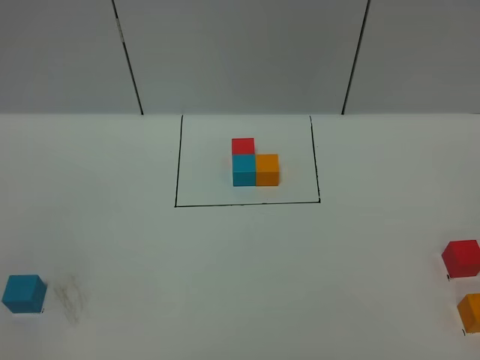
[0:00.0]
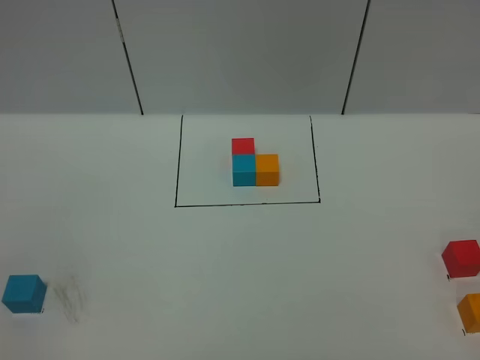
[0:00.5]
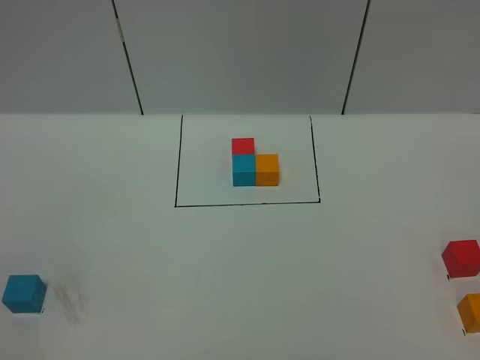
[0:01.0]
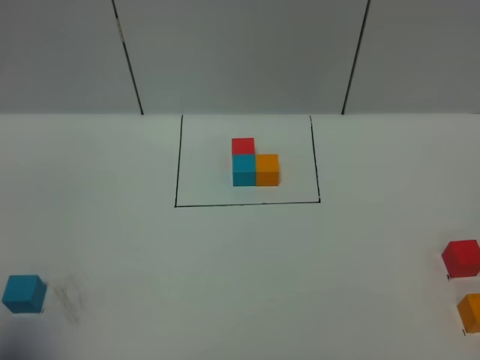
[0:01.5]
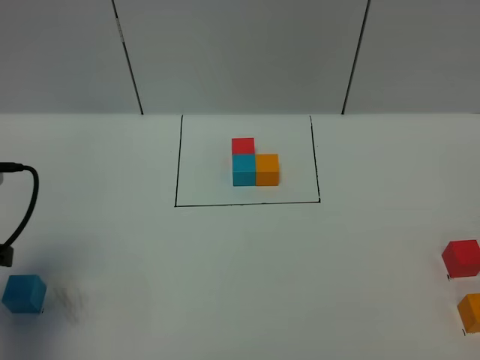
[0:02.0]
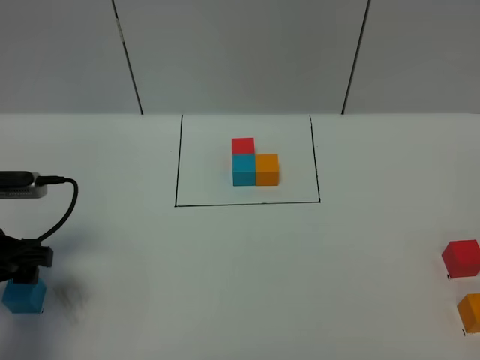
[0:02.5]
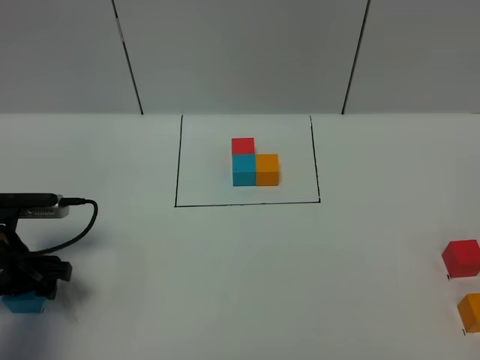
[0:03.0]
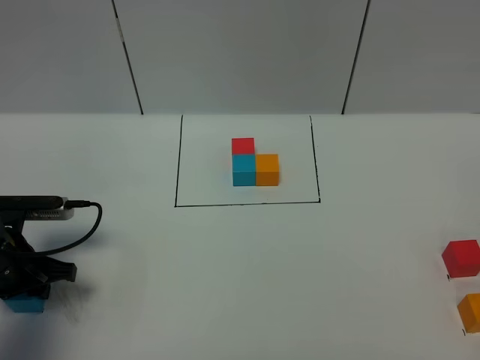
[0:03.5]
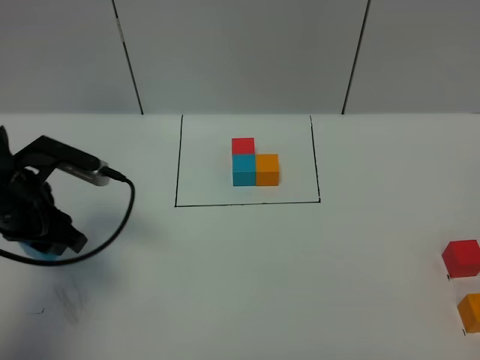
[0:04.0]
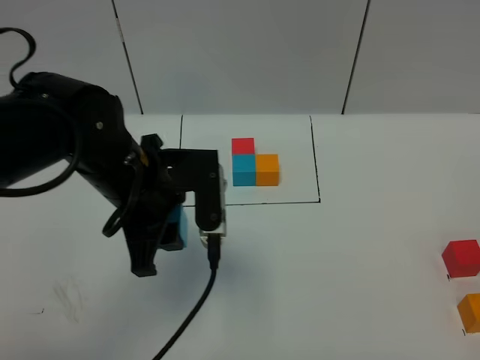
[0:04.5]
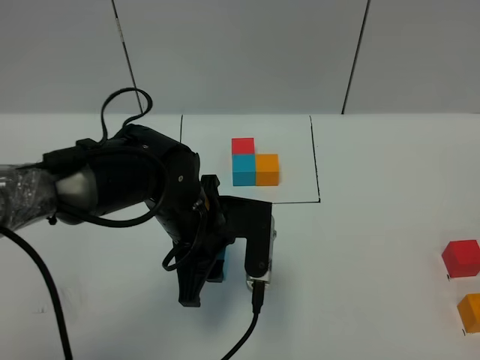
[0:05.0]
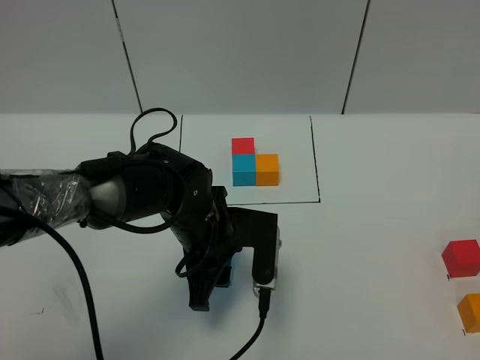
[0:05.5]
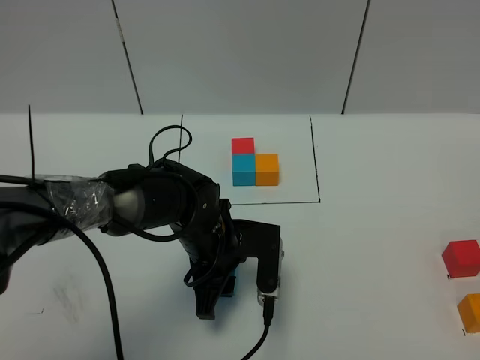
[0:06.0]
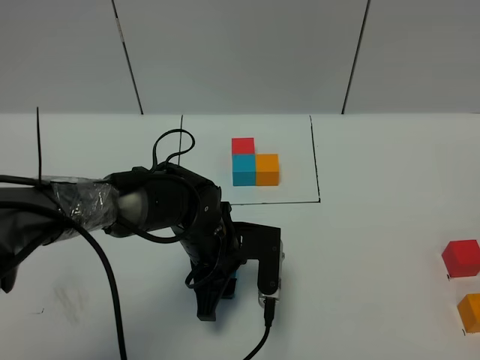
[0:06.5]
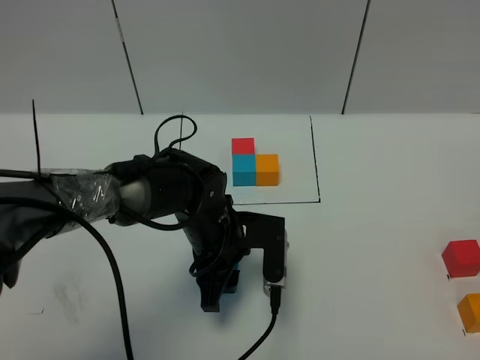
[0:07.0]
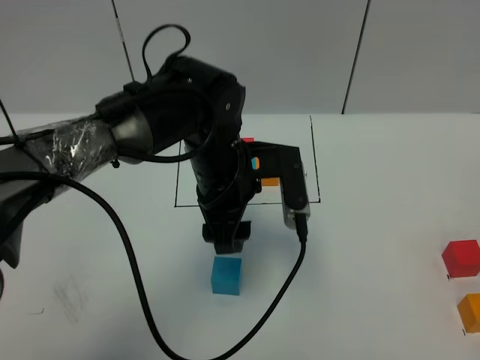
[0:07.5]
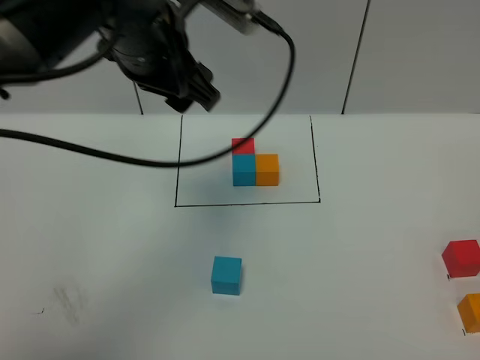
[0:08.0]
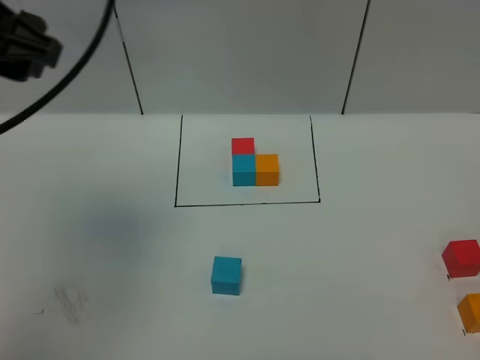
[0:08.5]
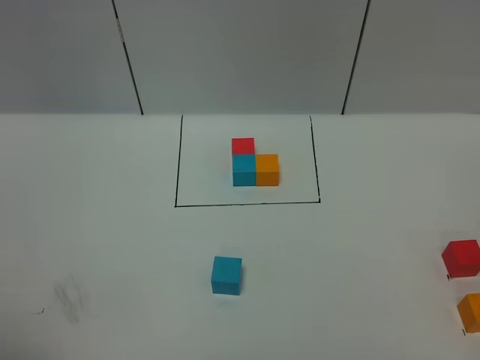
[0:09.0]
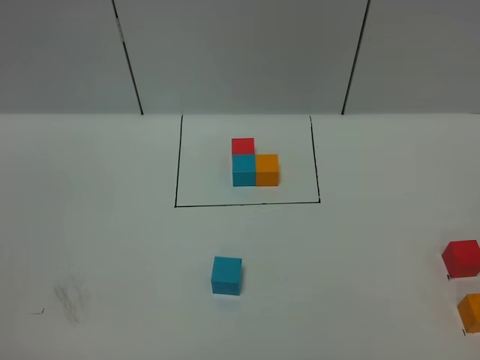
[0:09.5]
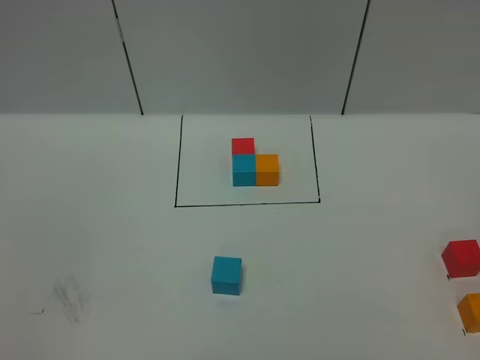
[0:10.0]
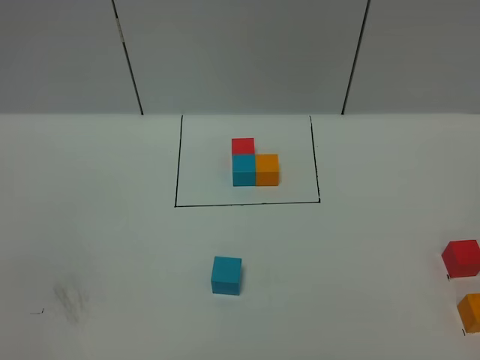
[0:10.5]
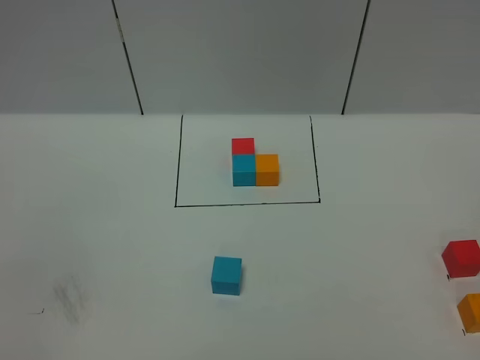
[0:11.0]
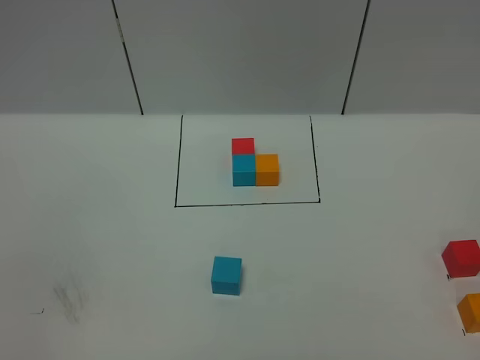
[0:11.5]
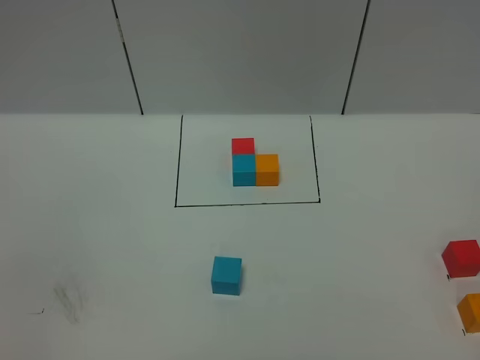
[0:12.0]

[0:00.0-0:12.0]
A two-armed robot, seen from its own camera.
Task of the whole recording: According to the building block template in front, assemble the scattered blocks together.
Step, 0:02.0 to 0:07.0: Put the blue cube in the center of the table.
0:00.0 to 0:02.0: The left gripper goes approximately 25 cm forward.
0:02.0 to 0:04.0: The left gripper goes some 10 cm forward and to the right, and closes.
0:04.0 to 0:06.0: The left gripper heads to the right, covering roughly 20 cm.
0:06.0 to 0:08.0: The left gripper is displaced upward by some 25 cm, and opens its fingers.
0:08.0 to 0:10.0: The left gripper travels backward and to the left by about 50 cm.

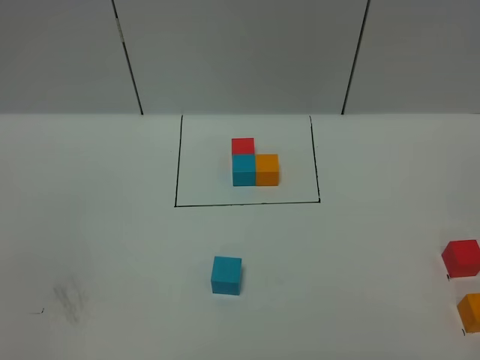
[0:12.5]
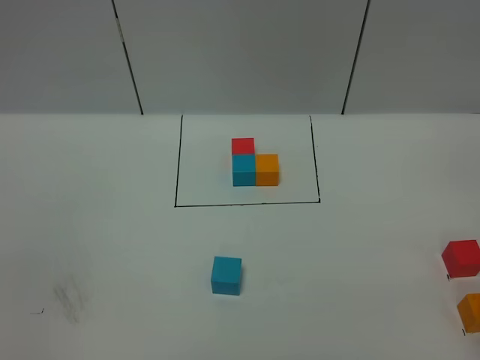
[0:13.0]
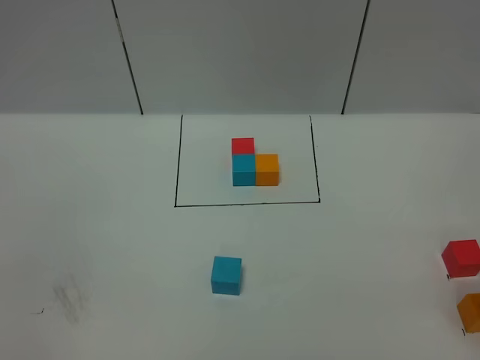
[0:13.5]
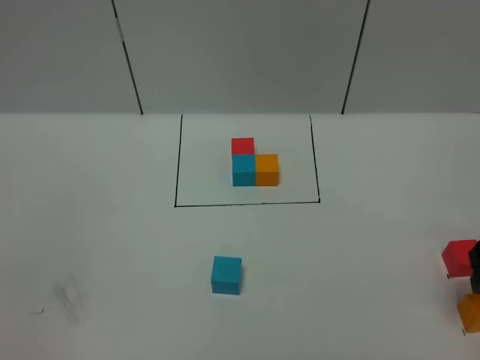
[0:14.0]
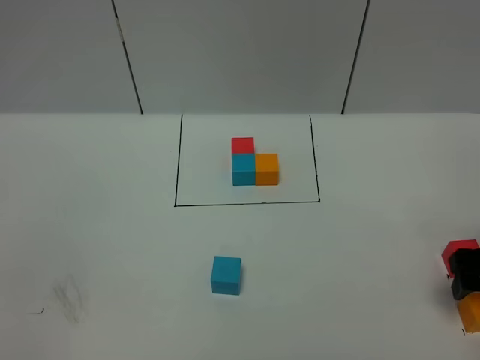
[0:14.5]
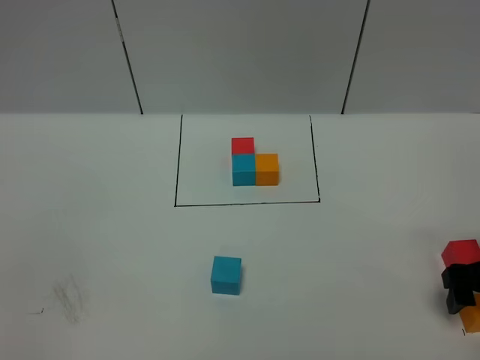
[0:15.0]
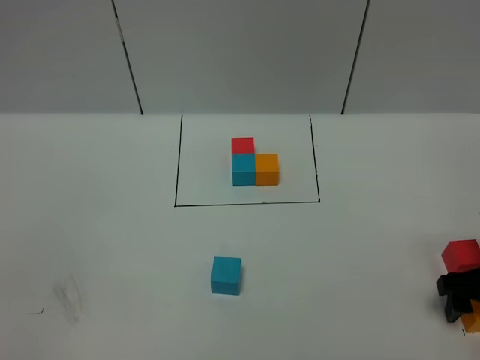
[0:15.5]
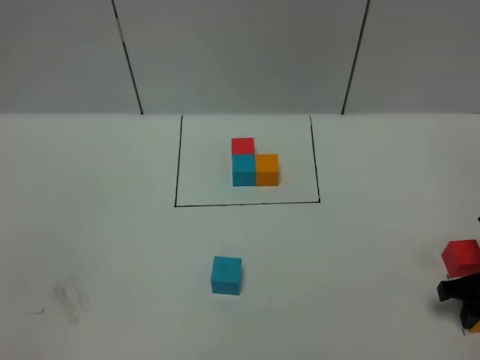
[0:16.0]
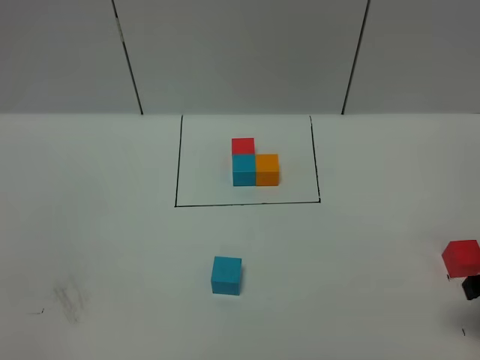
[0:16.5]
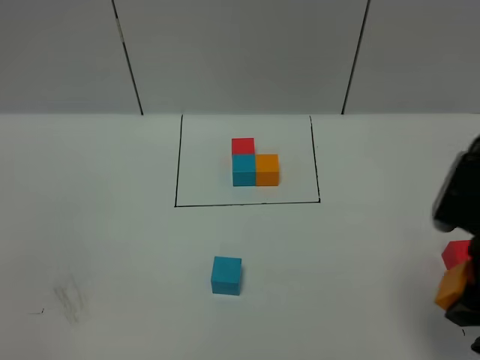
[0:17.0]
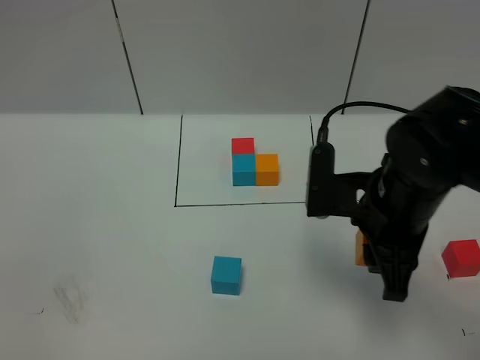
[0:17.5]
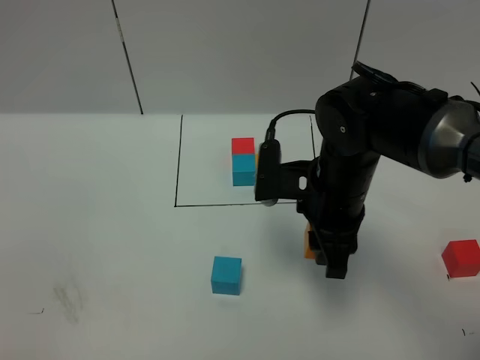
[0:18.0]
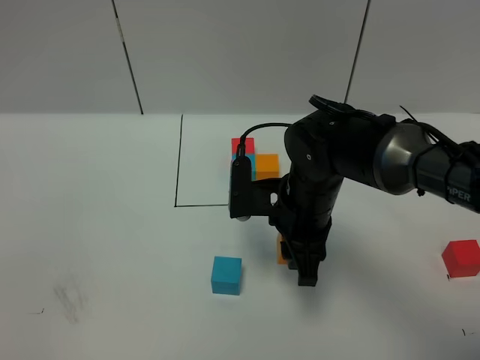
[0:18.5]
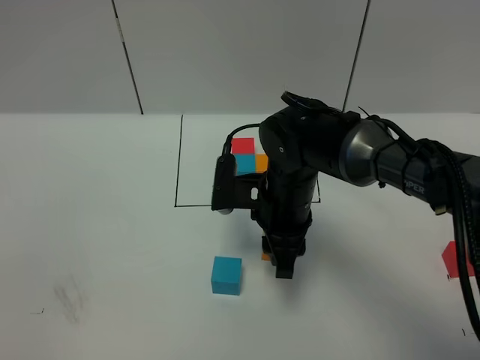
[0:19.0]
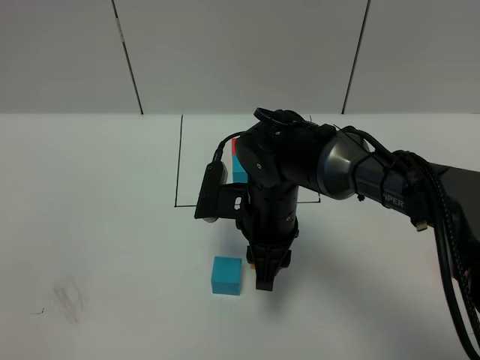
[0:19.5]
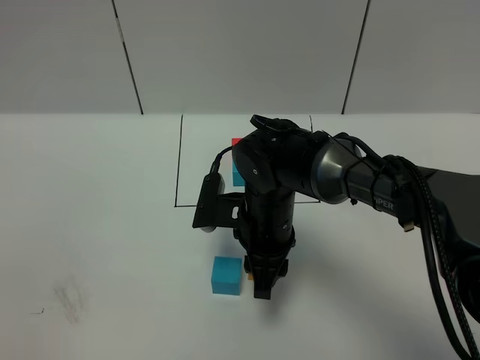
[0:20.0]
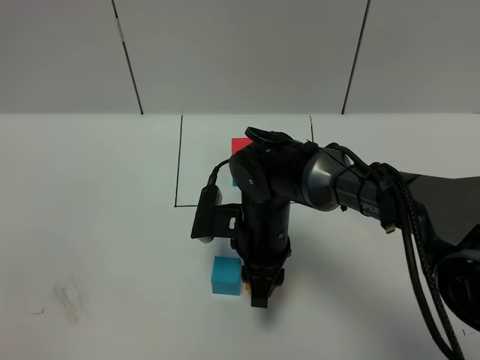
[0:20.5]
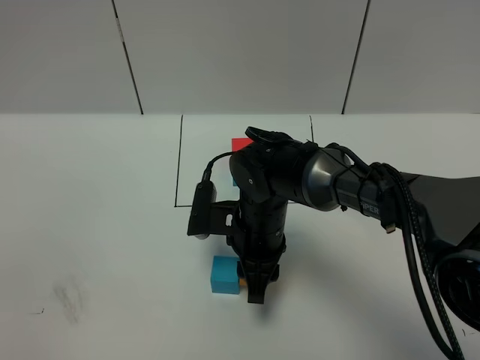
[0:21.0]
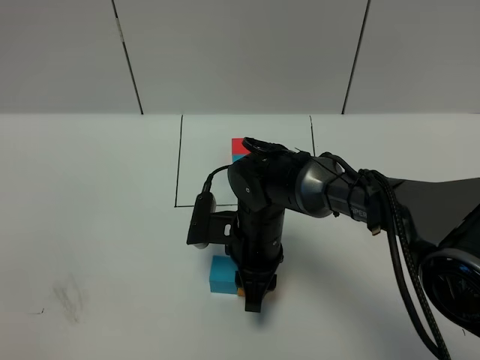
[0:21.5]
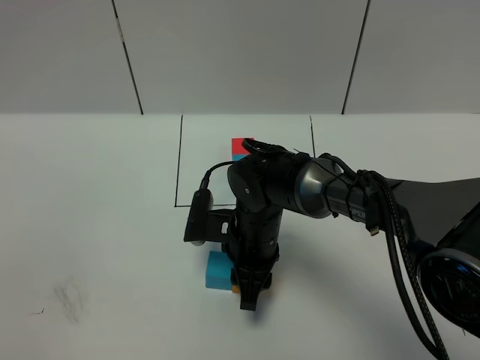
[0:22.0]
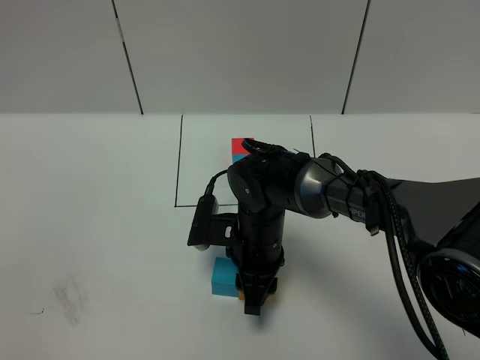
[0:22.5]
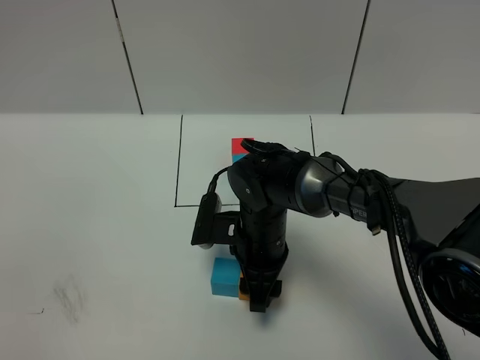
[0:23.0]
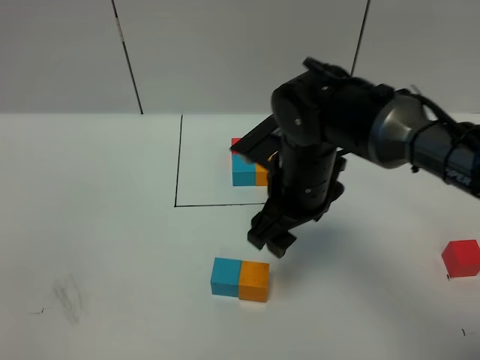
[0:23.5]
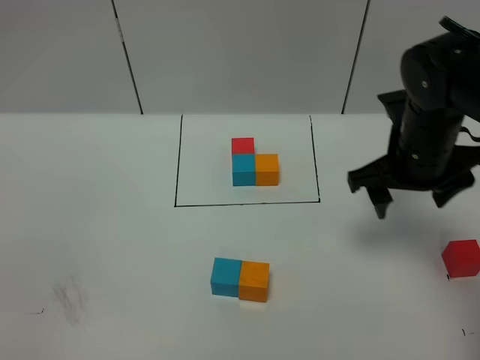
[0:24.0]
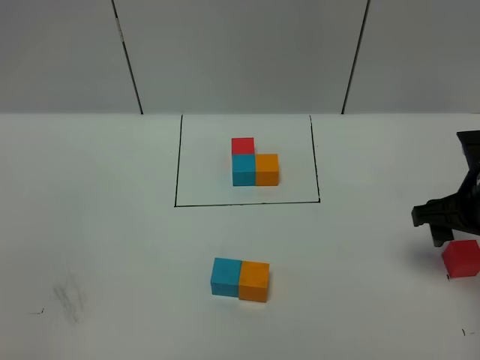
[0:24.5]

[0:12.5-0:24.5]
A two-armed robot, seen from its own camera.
Task of the whole recording: According to the building block template in front, assemble the scattered blocks together.
Step, 0:12.5 to 0:23.5: Put the orange cube on the right of the blue cube.
0:12.5 to 0:14.5: The right gripper travels forward and downward by approximately 25 cm, and opens.
0:14.5 to 0:16.5: The right gripper goes downward and returns, roughly 5 cm each way, and closes.
0:16.5 to 0:18.5: The right gripper heads to the left, covering about 25 cm.
0:18.5 to 0:20.5: The right gripper moves to the left, about 5 cm.
0:20.5 to 0:22.5: The grippers make only small movements.
0:22.5 to 0:24.5: The right gripper moves to the right, approximately 25 cm, and opens up.

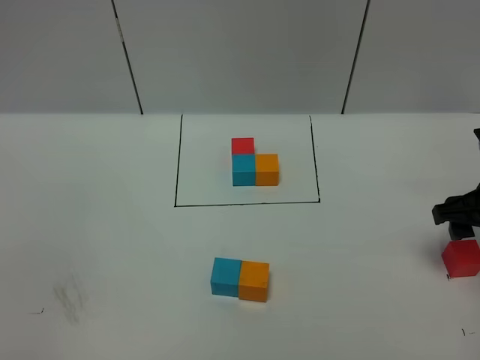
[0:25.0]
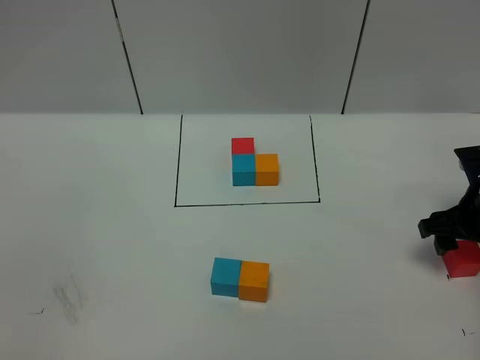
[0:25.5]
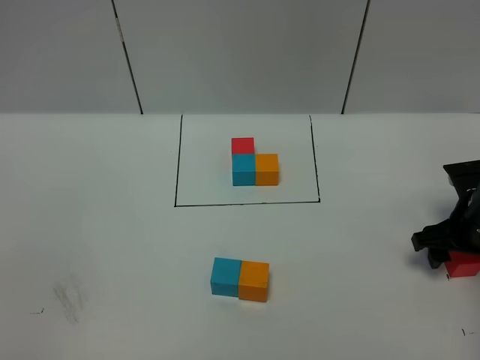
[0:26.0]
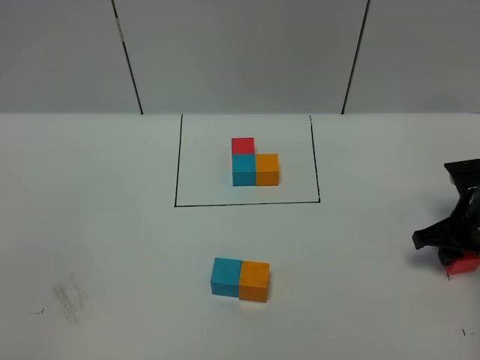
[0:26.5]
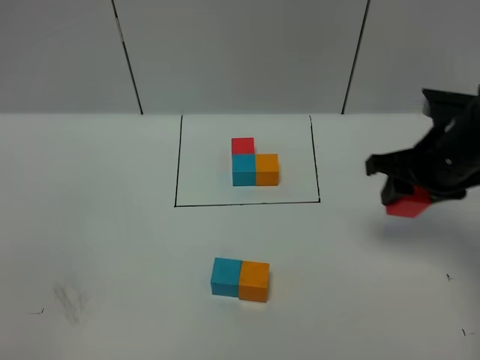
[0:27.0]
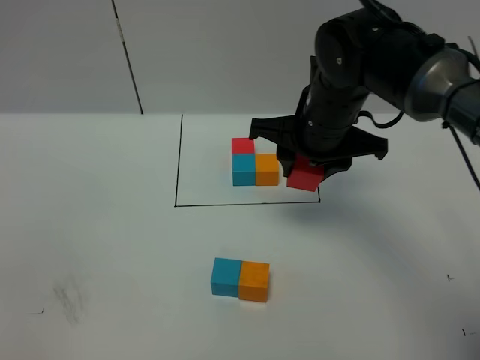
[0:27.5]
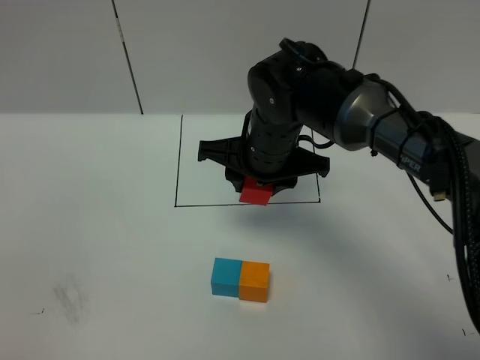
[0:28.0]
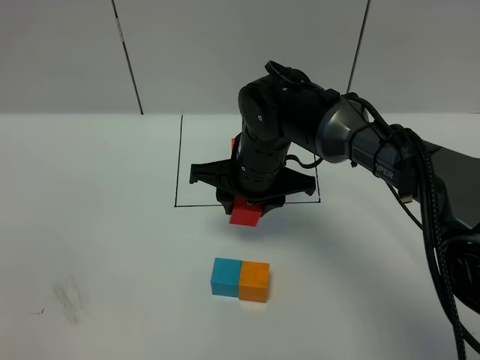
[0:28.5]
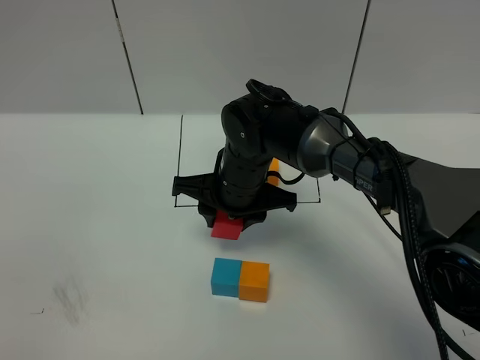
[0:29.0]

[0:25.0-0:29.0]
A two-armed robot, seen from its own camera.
Task of the whole recording: According to the building block template in front, assemble the scattered blocks together.
0:25.0 to 0:27.0: The right gripper shifts roughly 10 cm to the left and upward, and closes up.
0:27.0 to 0:29.0: The right gripper shifts some 20 cm to the left.
